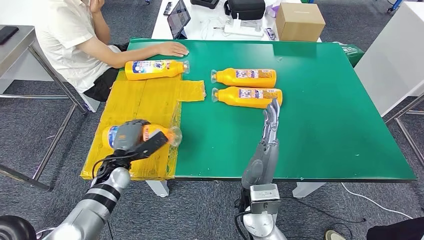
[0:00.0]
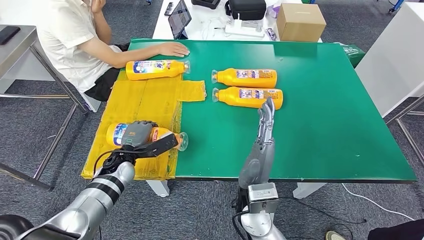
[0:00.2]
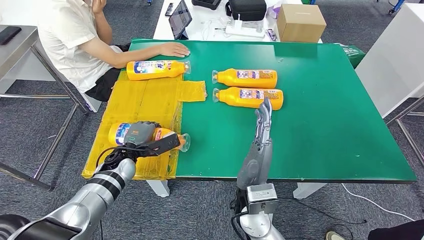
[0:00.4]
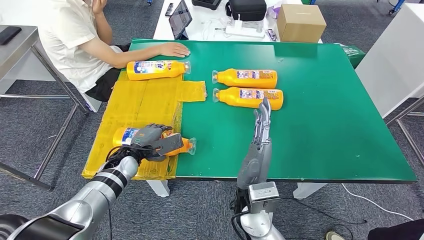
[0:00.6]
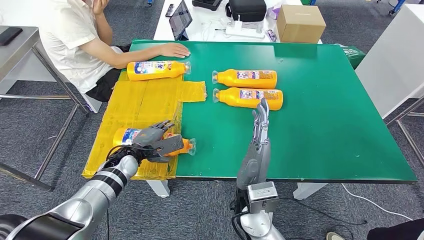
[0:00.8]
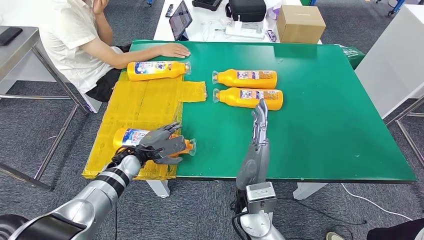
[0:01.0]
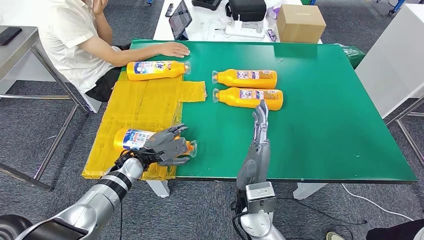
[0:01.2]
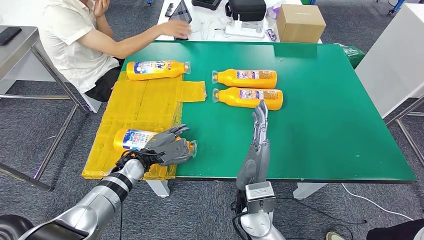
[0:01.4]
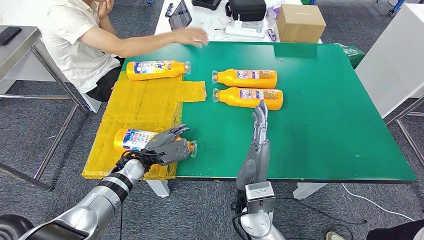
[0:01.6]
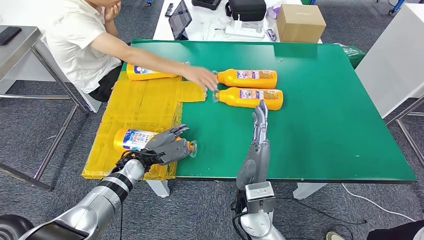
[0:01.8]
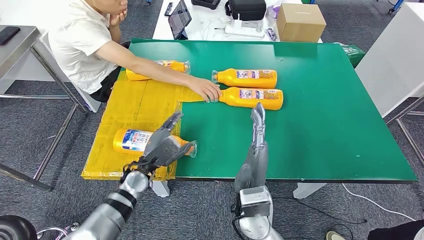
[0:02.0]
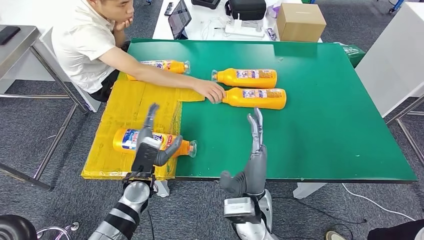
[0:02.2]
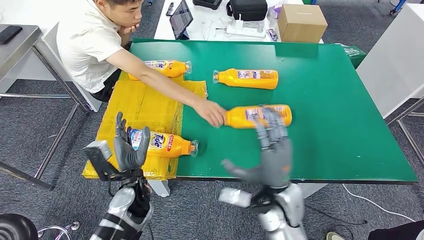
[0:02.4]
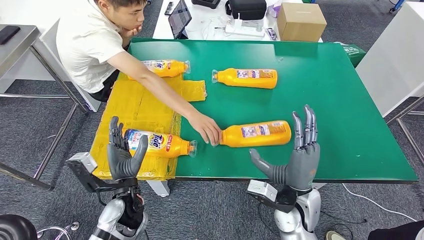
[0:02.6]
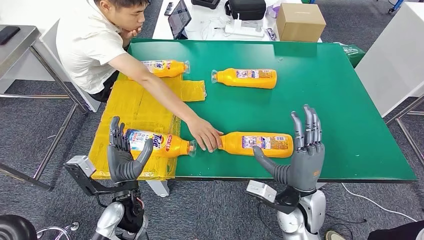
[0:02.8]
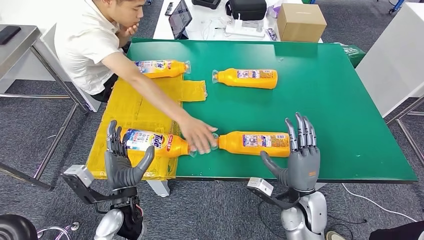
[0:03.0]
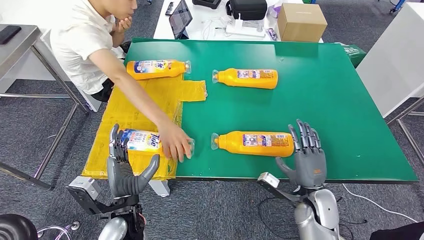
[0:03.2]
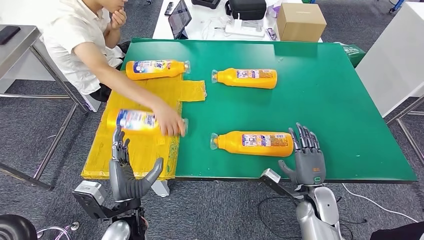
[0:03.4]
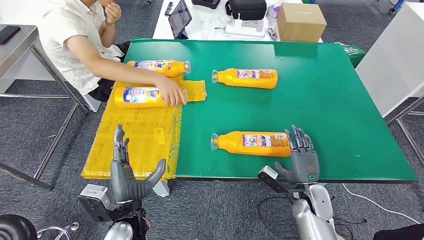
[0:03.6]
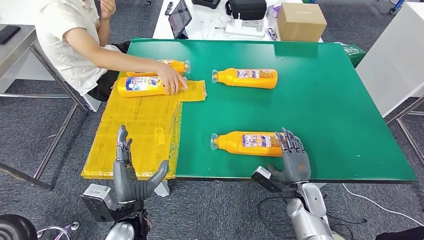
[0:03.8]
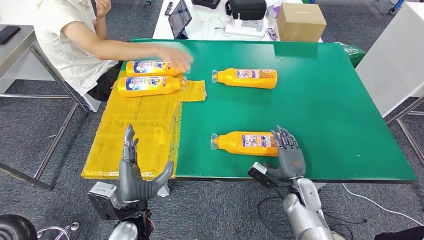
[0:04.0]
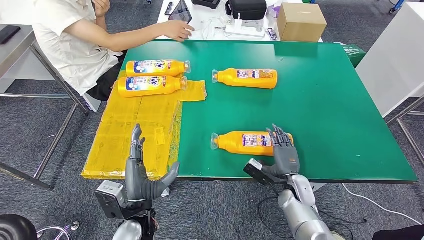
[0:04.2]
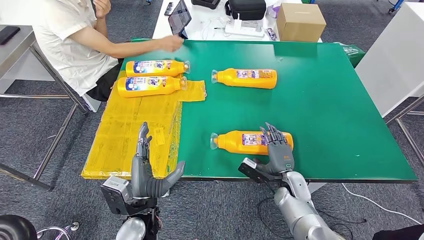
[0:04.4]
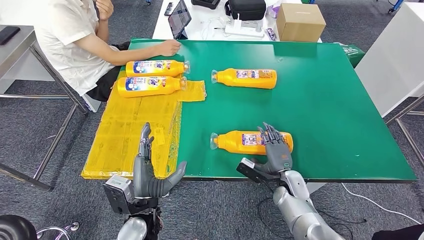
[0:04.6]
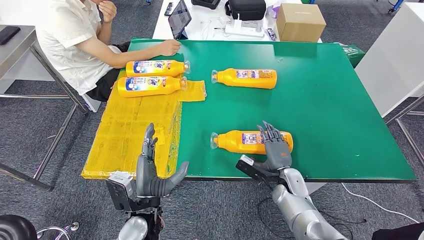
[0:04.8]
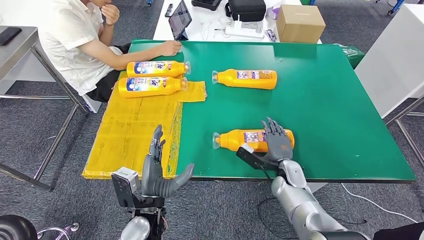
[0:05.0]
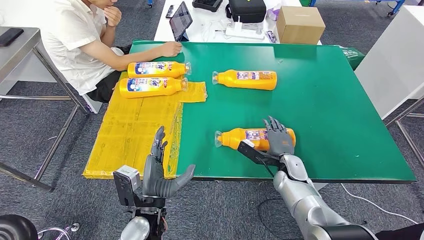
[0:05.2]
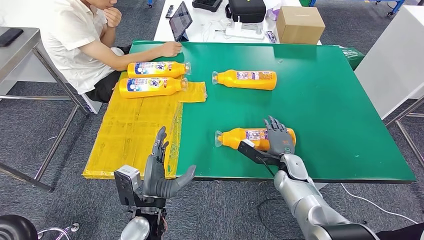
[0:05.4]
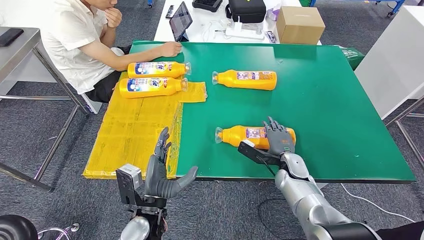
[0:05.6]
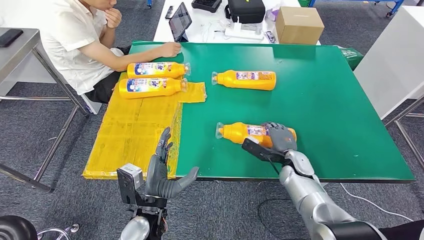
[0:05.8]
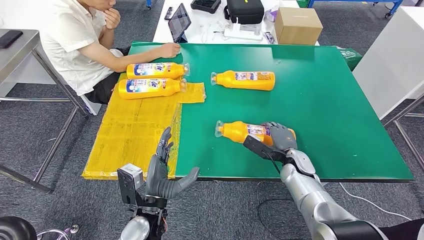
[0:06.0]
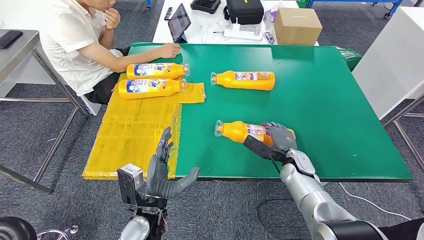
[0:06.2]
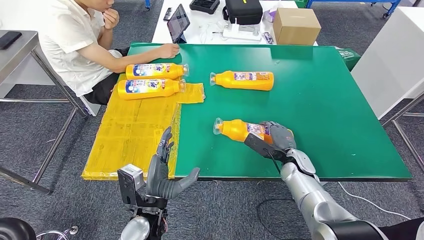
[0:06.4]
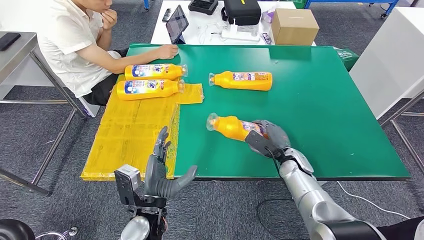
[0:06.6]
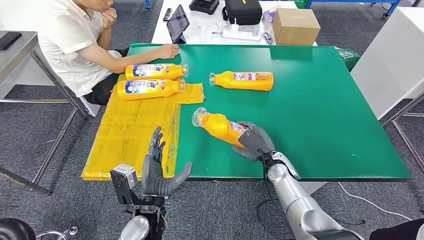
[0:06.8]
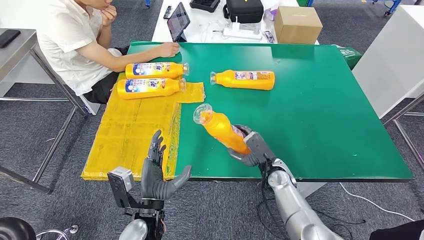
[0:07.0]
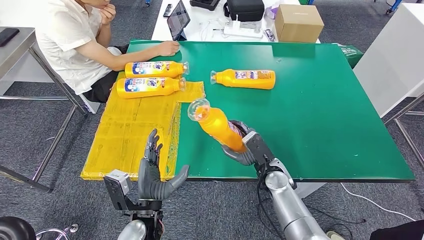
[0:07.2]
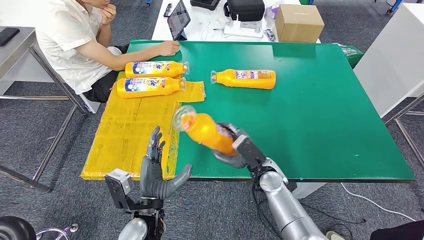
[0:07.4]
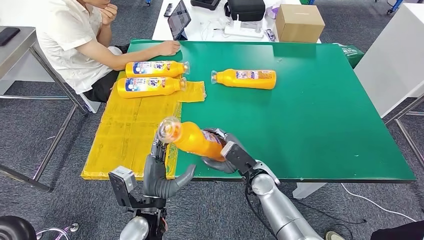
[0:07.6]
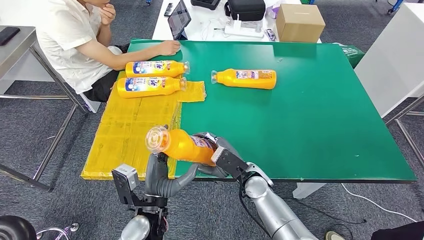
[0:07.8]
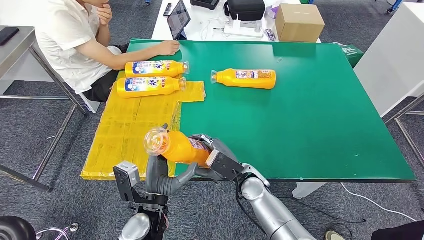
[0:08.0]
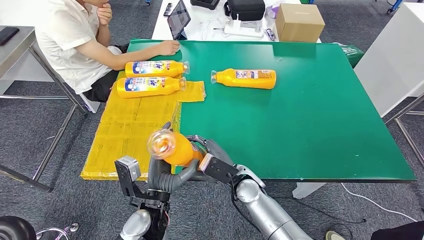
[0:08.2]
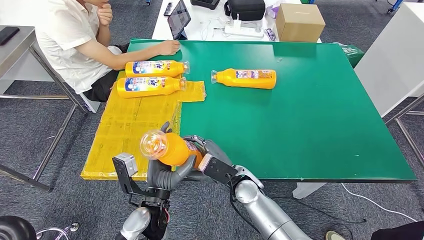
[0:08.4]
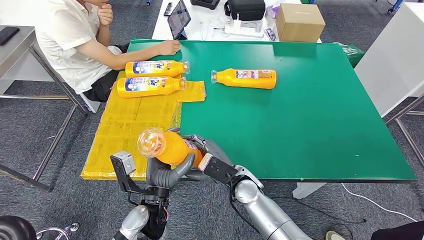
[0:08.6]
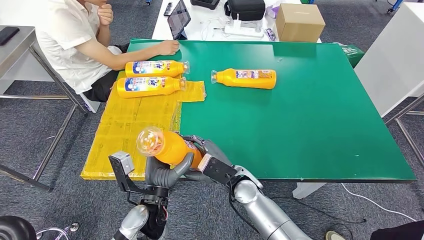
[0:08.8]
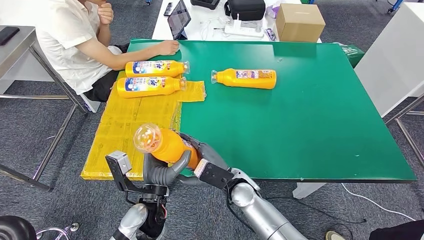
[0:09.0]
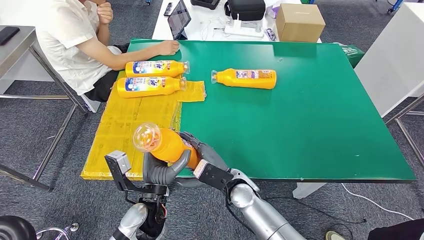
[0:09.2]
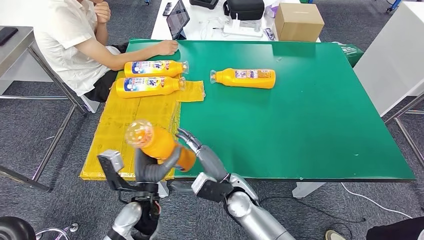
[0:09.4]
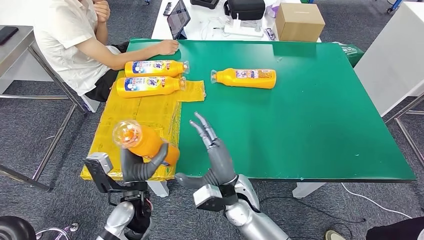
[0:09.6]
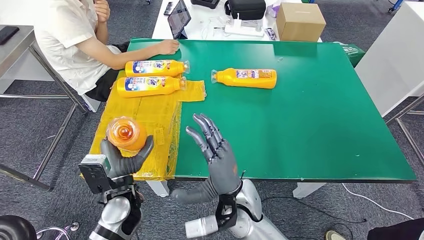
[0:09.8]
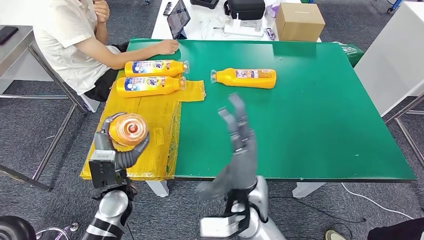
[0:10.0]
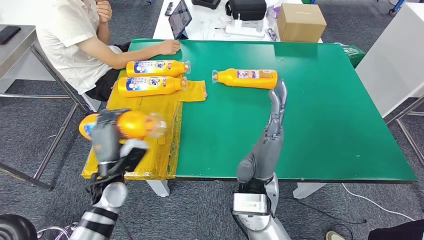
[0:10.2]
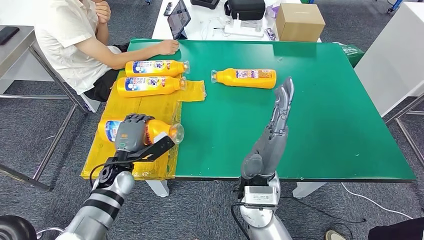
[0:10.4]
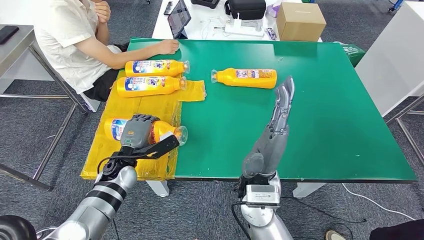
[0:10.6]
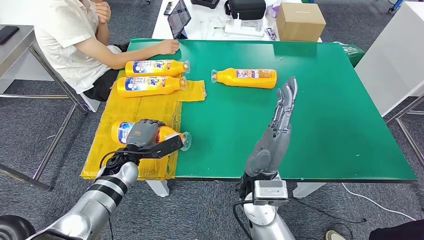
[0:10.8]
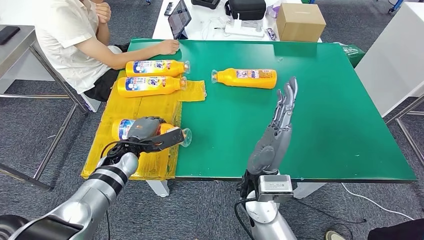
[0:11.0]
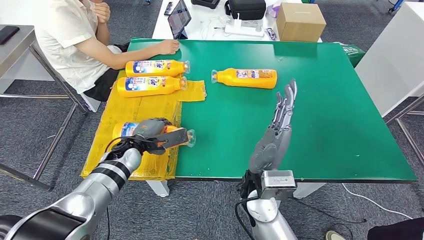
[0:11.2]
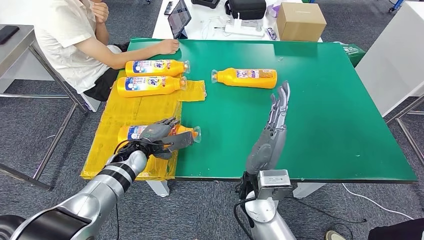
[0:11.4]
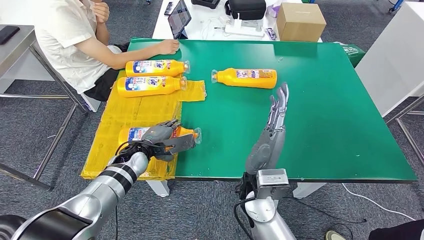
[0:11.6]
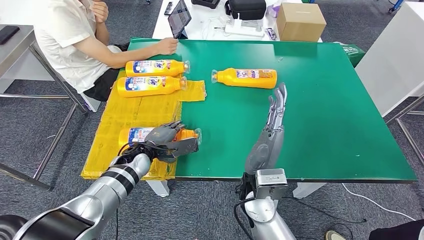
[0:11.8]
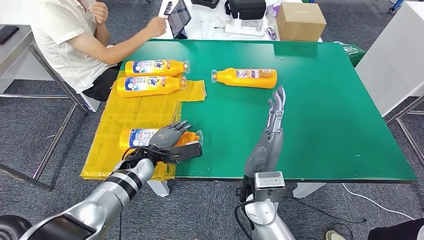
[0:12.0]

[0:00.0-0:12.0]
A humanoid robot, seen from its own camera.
Step, 1.4 to 7.4 s: Pick up the fast-moving consumer goods bottle from the table.
7.6 to 9.0 s: The right hand travels to the left by about 5 cm.
9.0 to 10.4 s: The left hand moves to the left and forward, roughly 15 cm. Meanwhile the right hand goes approximately 10 cm upward.
10.4 to 12.0 s: The left hand travels to the right by some 5 cm.

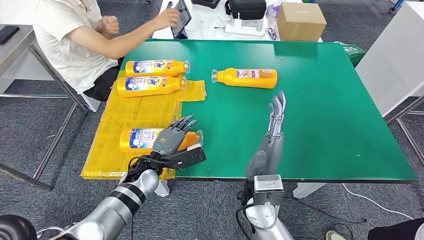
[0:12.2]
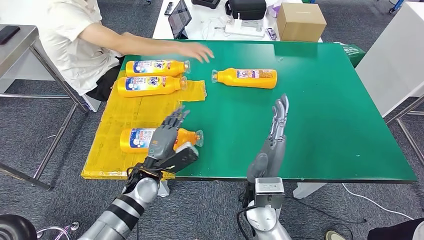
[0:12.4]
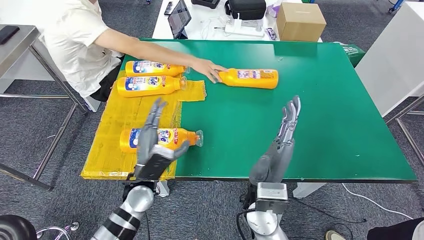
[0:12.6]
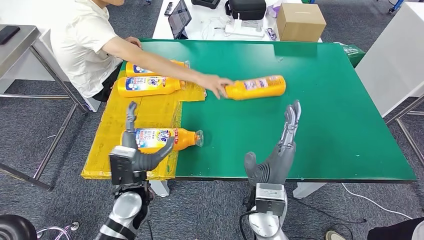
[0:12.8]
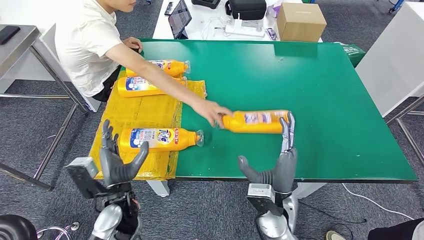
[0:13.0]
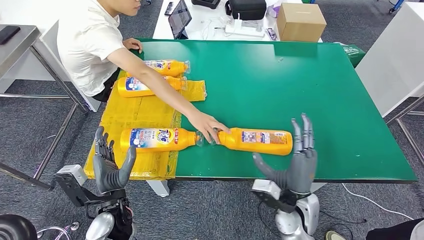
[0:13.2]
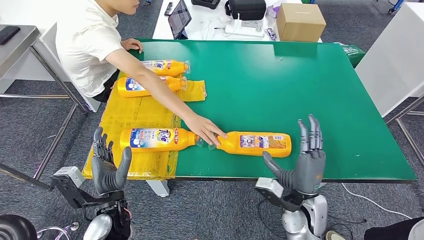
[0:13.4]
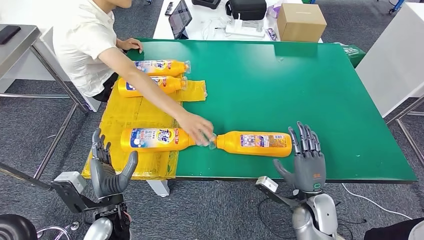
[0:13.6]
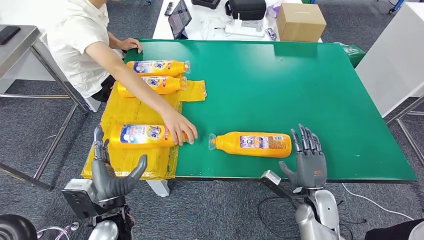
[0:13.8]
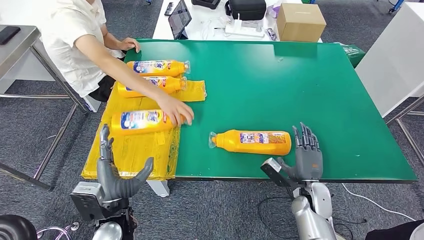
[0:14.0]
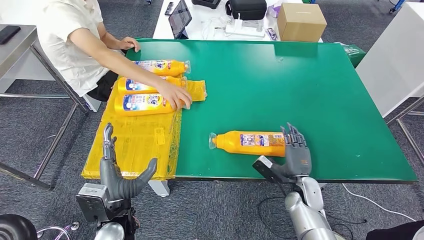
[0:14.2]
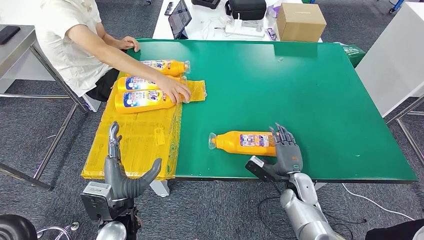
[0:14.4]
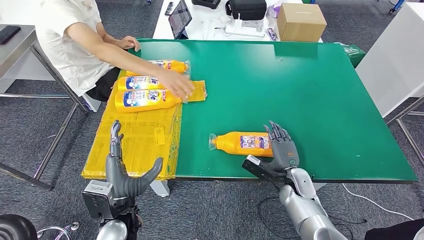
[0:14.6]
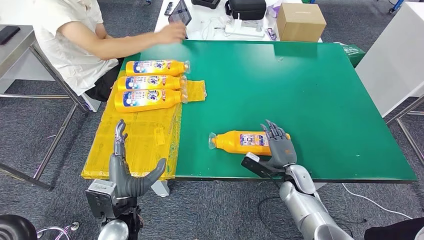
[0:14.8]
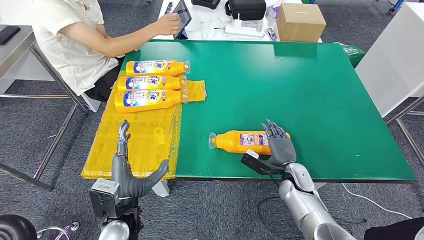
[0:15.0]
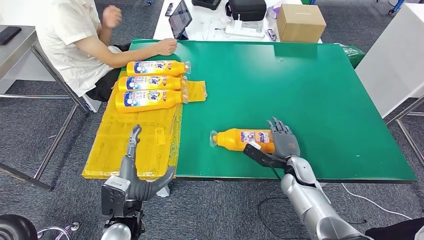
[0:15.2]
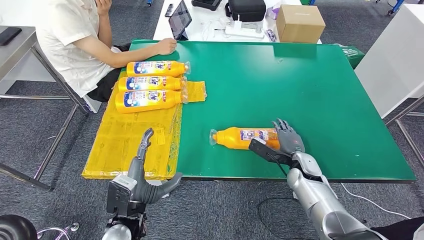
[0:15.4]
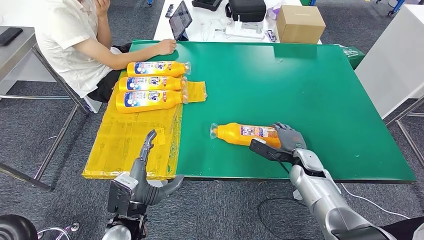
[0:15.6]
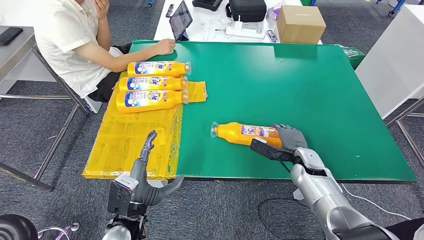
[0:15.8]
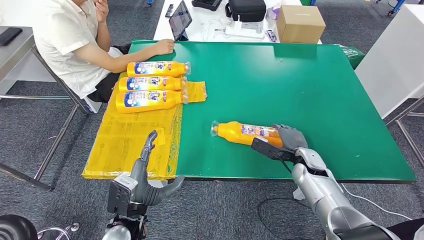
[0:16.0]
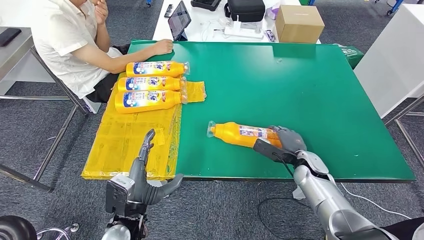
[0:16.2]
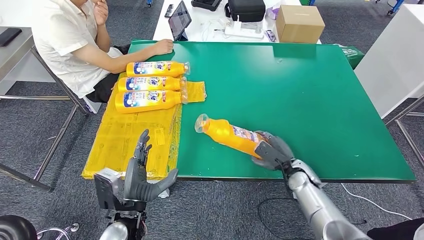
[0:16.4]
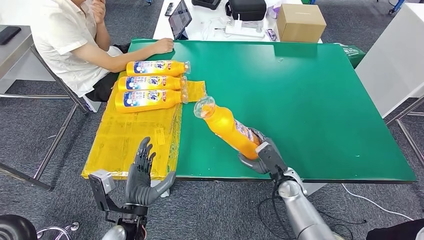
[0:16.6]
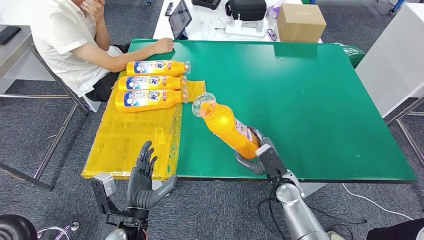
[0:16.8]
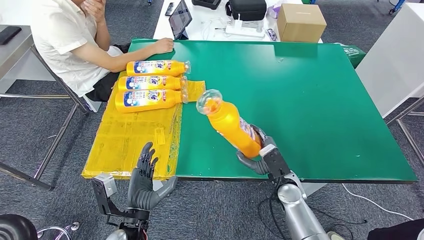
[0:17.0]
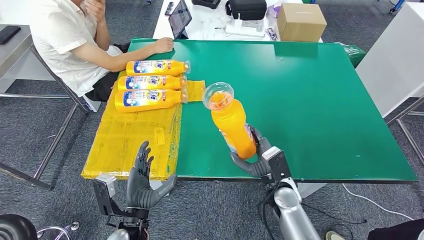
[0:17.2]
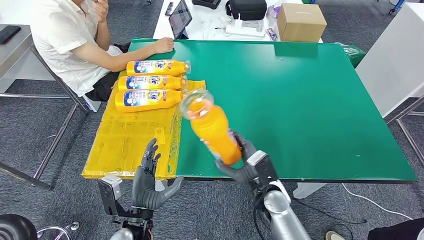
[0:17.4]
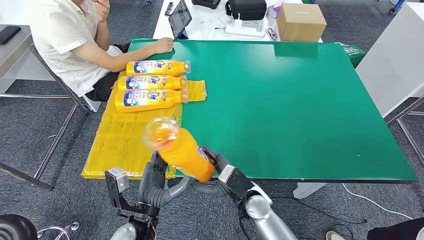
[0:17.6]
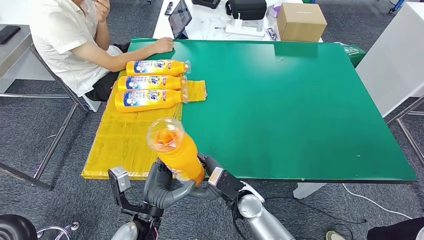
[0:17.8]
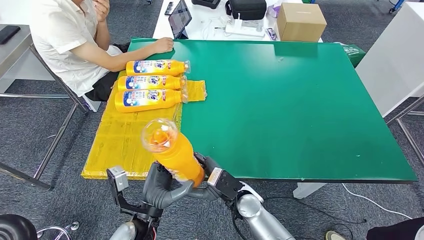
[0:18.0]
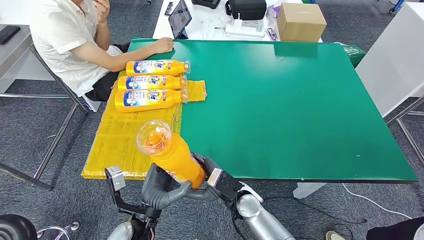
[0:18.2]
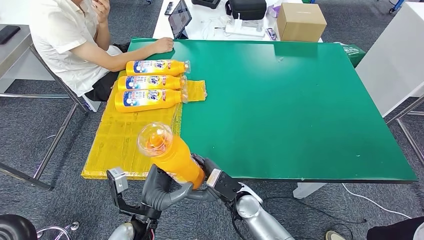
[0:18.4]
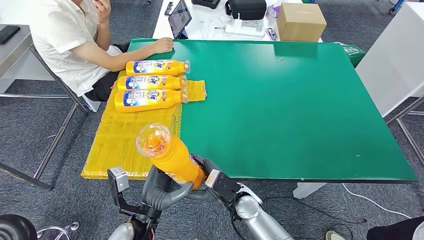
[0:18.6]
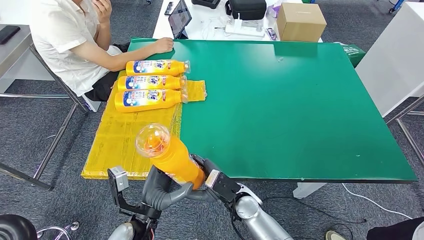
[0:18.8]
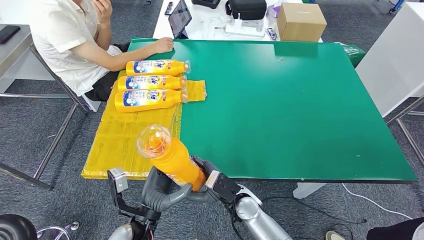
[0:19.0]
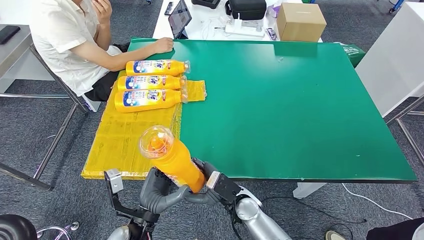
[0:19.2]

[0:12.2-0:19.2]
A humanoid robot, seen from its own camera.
Step, 12.4 to 17.6 s: Pick up the fast-moving consumer goods bottle from the table.
16.4 to 17.8 s: The right hand goes approximately 20 cm to the left and backward.
17.8 to 19.2 s: The hands move only a little.
